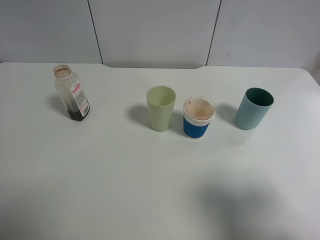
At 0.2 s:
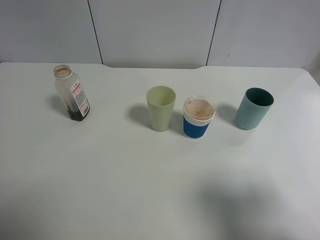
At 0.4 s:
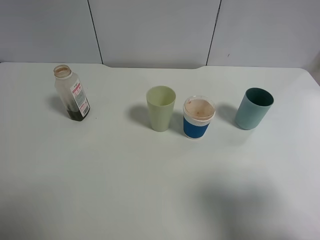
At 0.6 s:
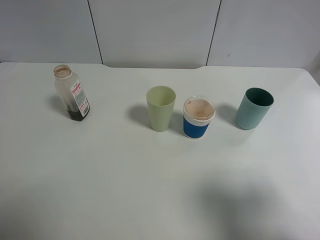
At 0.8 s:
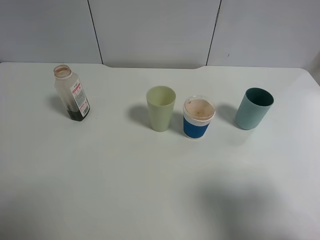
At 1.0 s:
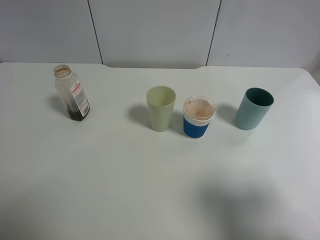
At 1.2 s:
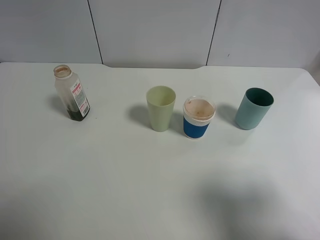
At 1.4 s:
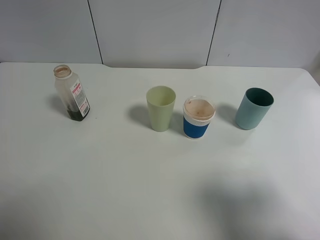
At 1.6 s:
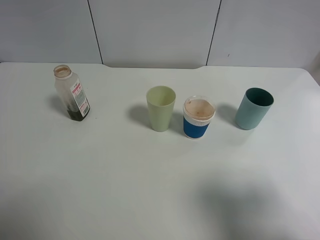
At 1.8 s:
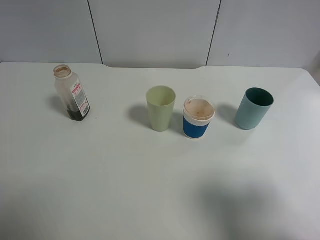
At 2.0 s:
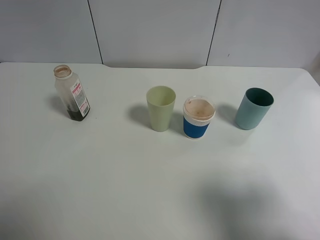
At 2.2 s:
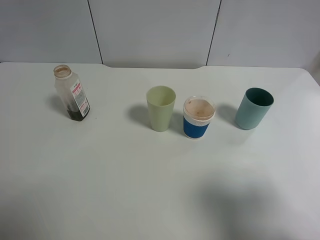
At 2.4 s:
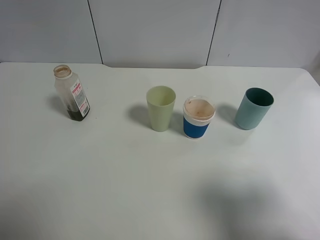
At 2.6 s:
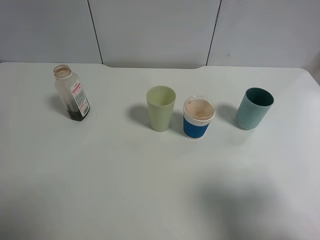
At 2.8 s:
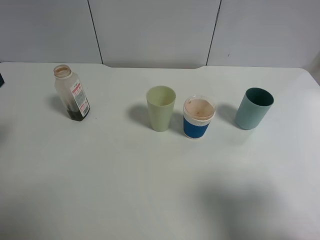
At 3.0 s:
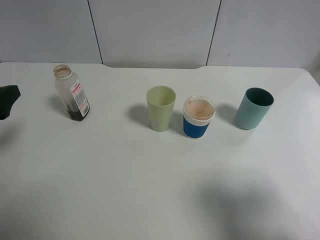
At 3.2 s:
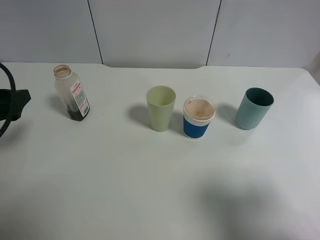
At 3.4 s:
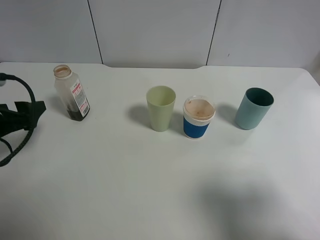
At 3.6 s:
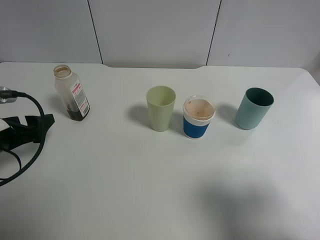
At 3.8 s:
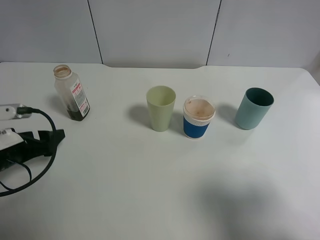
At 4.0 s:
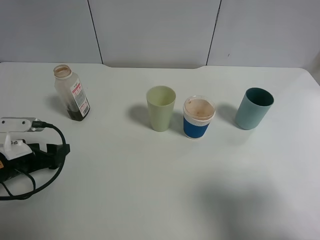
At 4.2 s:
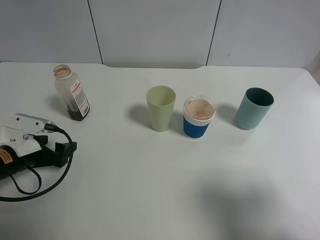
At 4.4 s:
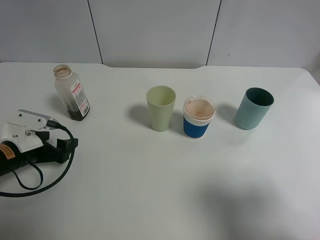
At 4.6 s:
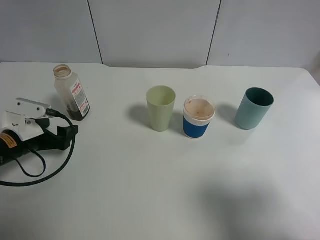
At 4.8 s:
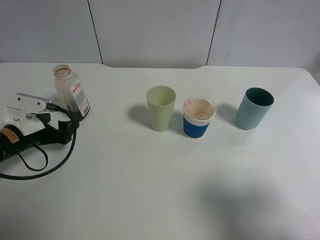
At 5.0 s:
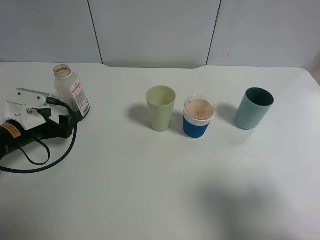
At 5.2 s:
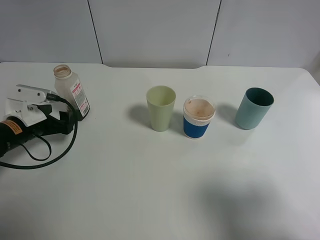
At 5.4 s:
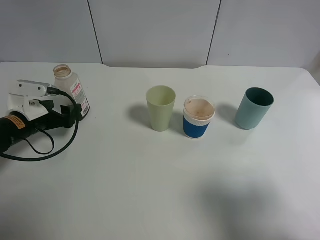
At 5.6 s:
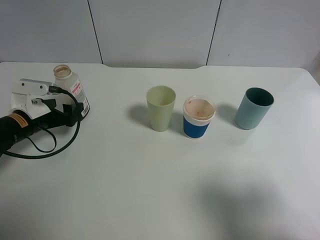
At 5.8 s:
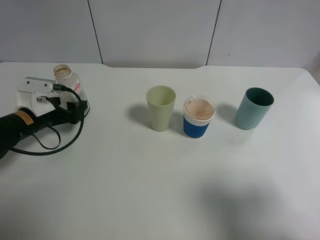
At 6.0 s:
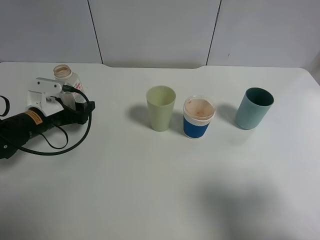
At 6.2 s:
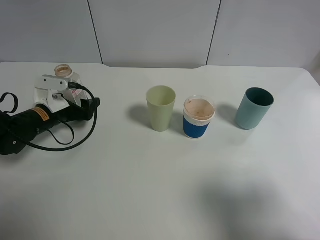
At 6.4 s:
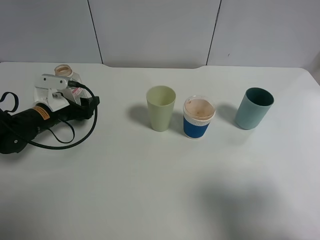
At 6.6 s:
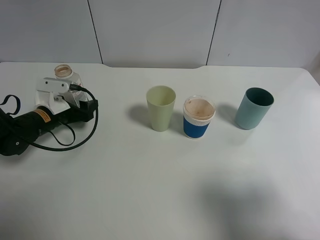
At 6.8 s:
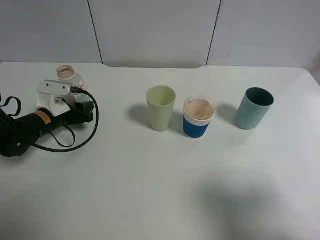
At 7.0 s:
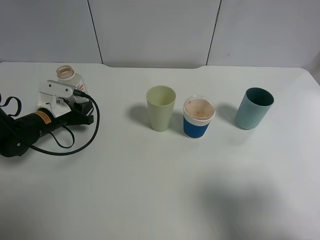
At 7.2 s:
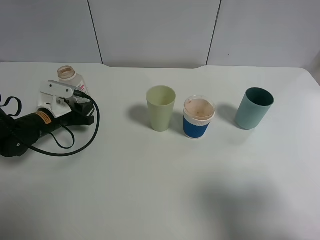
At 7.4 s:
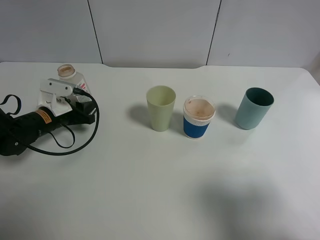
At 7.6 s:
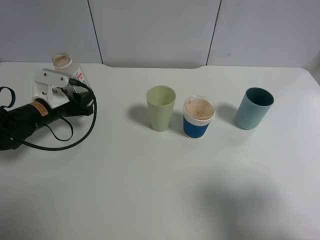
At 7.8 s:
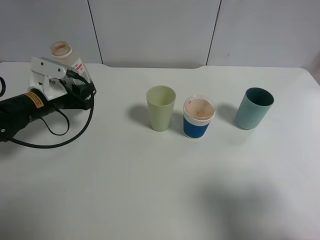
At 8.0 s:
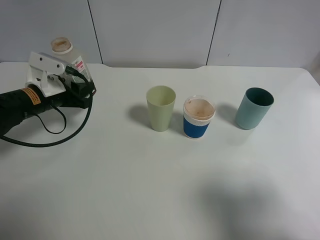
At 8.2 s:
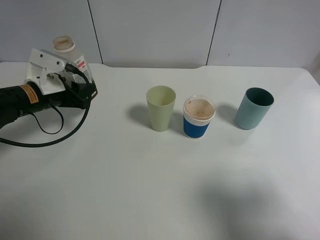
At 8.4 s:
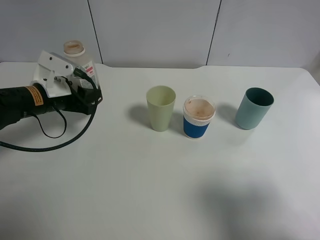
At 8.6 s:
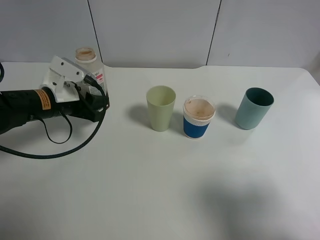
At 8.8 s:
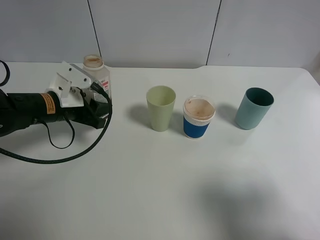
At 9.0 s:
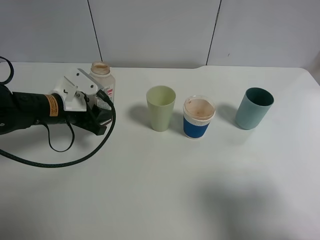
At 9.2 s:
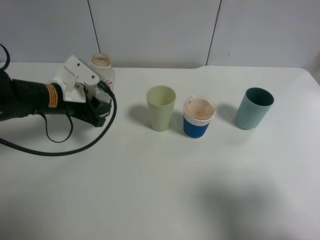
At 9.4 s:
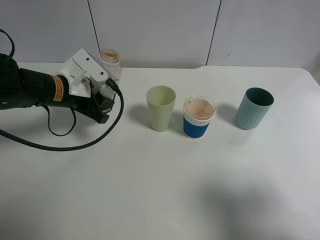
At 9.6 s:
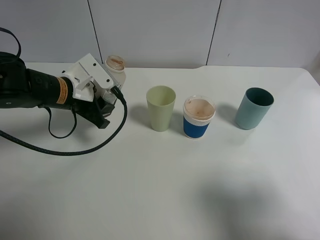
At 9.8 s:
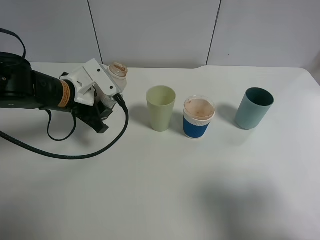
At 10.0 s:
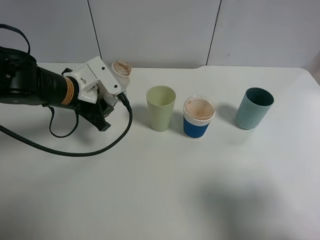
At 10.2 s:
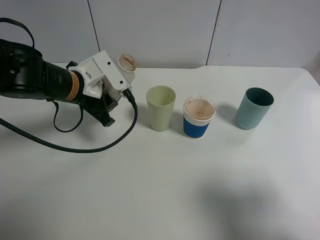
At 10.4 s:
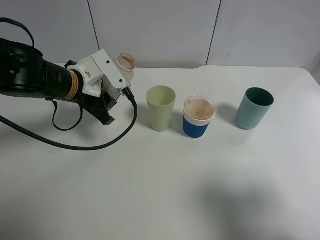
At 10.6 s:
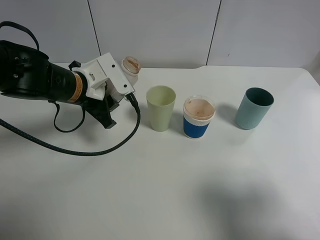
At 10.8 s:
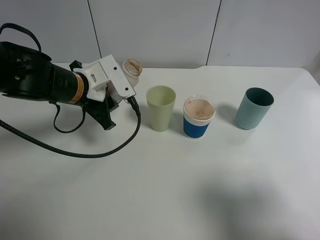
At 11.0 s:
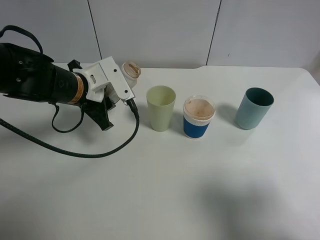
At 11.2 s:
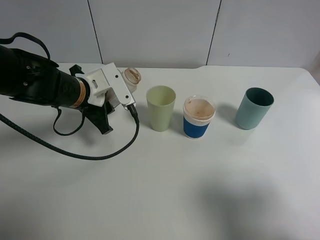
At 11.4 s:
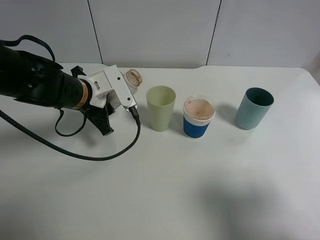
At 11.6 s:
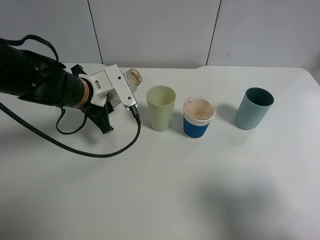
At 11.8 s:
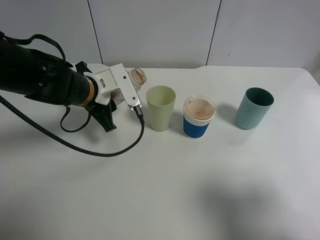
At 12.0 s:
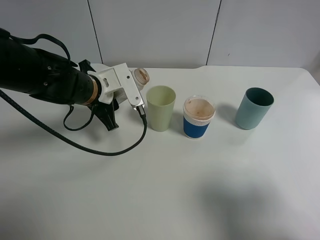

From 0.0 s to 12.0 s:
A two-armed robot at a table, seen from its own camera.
Task of the whole recording: use a gripper to hold the bottle of the drink and pour it into a random cup.
Step, from 0.0 s to 6.8 s: Grasp the cranberry juice bottle with the left gripper.
From 0.0 s to 1.6 s: The two grippers keep their place.
From 1.6 s to 3.0 s: The left gripper goes some 15 cm forward and downward.
From 3.0 s to 4.4 s: The left gripper moves downward, some 15 cm.
From 4.4 s to 6.0 s: The left gripper goes roughly 10 cm forward.
From 6.0 s to 7.6 s: The left gripper closes its fingers.
From 7.6 s to 9.0 s: The left gripper is displaced to the right by about 5 cm.
From 9.0 s to 10.4 s: The left gripper moves approximately 5 cm.
From 10.4 s to 12.0 s: The grippers stay close to where they were, moving slightly.

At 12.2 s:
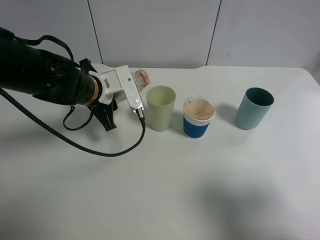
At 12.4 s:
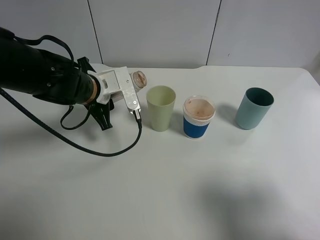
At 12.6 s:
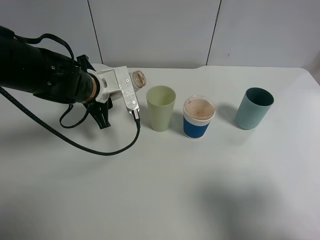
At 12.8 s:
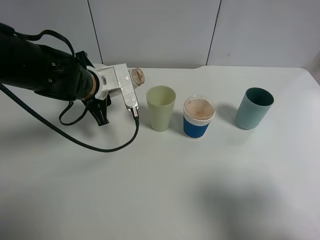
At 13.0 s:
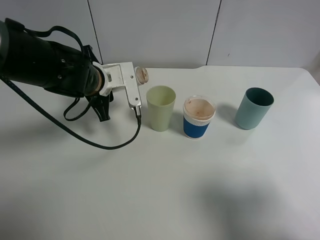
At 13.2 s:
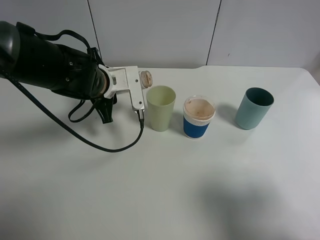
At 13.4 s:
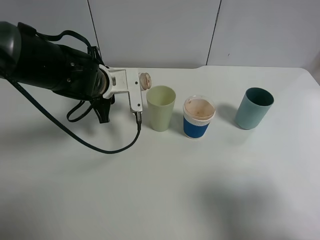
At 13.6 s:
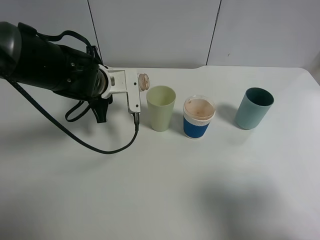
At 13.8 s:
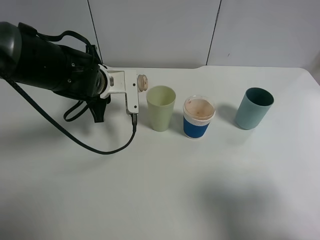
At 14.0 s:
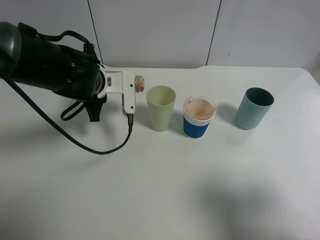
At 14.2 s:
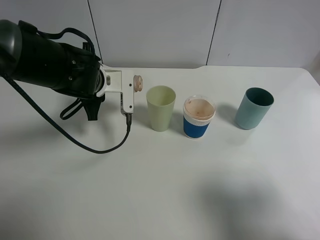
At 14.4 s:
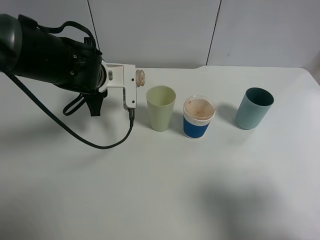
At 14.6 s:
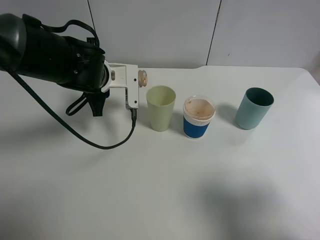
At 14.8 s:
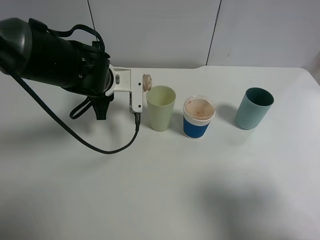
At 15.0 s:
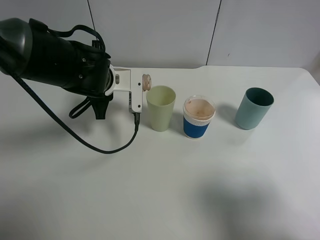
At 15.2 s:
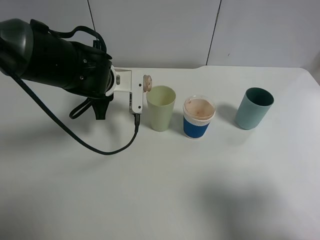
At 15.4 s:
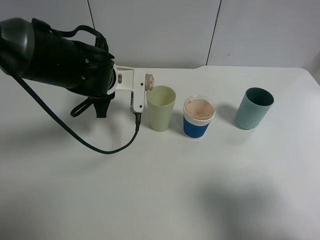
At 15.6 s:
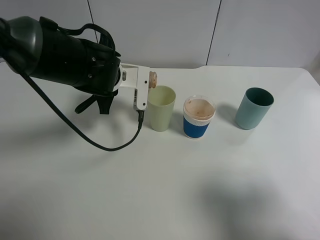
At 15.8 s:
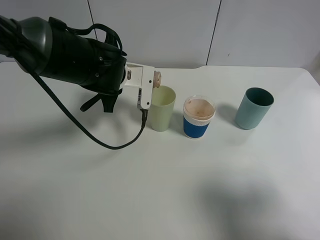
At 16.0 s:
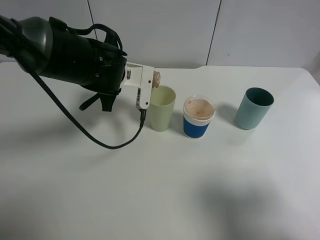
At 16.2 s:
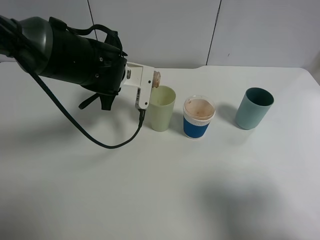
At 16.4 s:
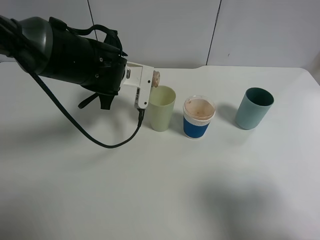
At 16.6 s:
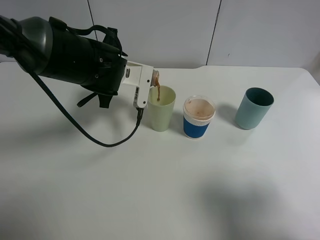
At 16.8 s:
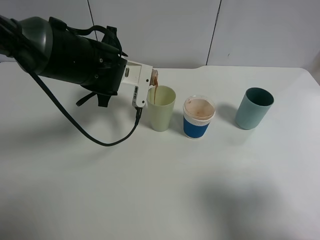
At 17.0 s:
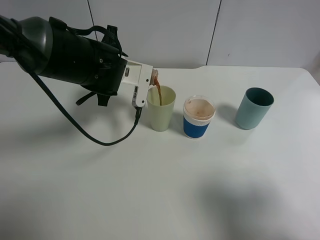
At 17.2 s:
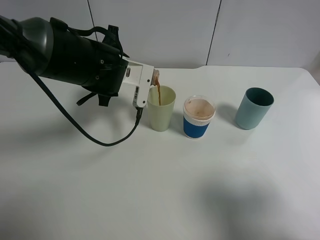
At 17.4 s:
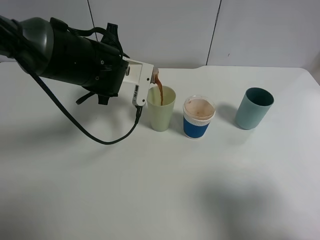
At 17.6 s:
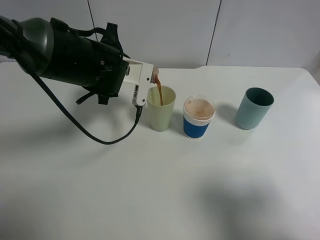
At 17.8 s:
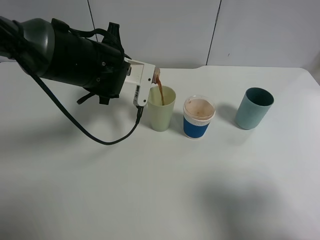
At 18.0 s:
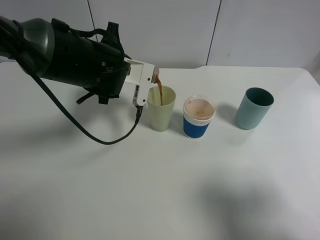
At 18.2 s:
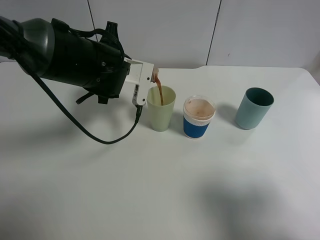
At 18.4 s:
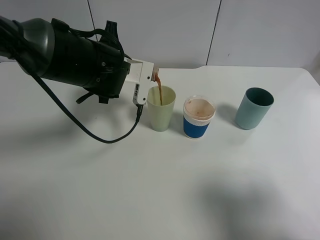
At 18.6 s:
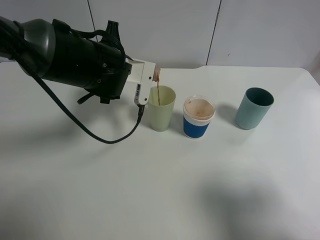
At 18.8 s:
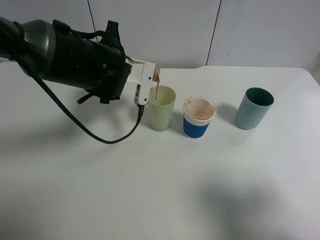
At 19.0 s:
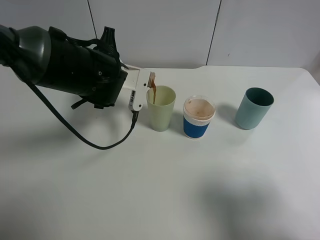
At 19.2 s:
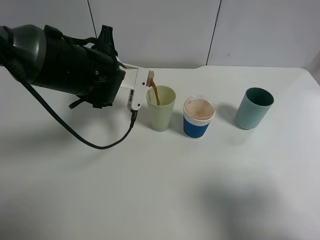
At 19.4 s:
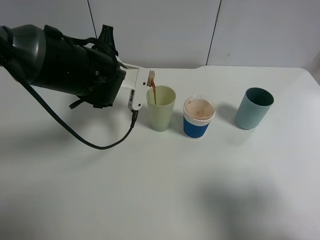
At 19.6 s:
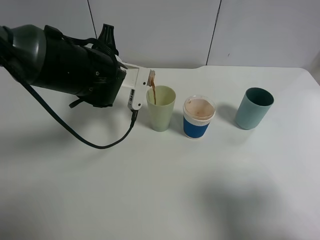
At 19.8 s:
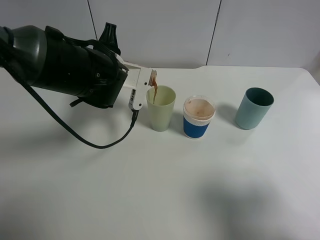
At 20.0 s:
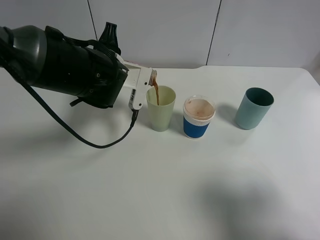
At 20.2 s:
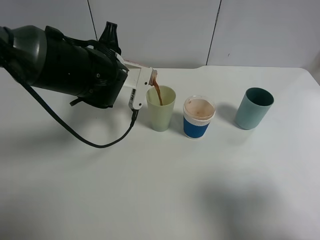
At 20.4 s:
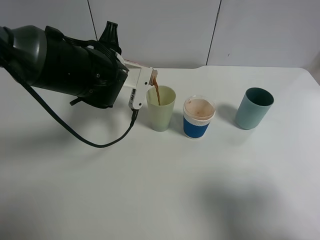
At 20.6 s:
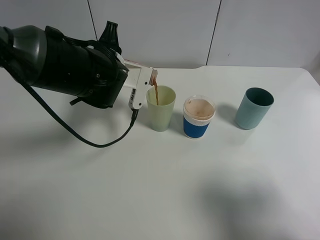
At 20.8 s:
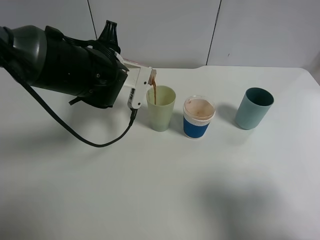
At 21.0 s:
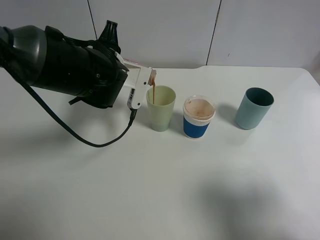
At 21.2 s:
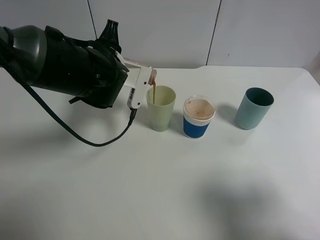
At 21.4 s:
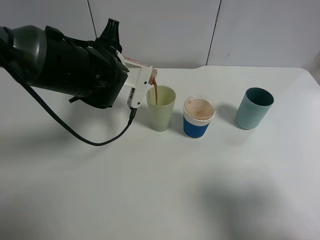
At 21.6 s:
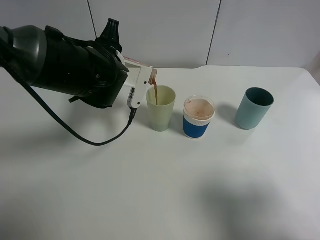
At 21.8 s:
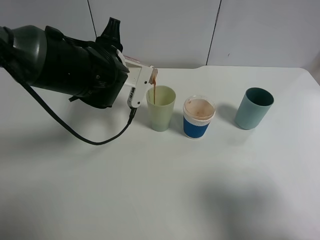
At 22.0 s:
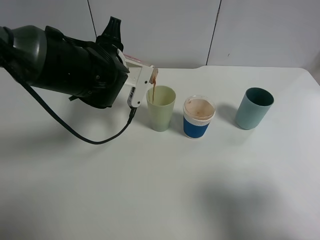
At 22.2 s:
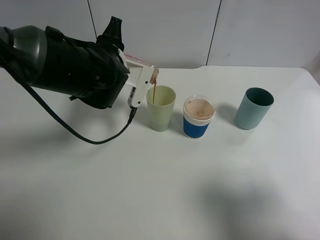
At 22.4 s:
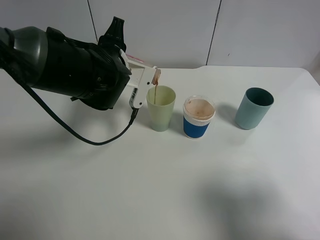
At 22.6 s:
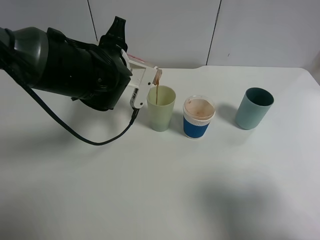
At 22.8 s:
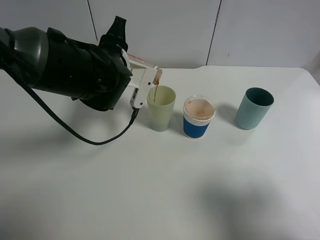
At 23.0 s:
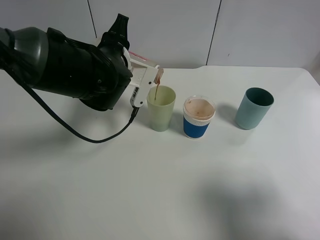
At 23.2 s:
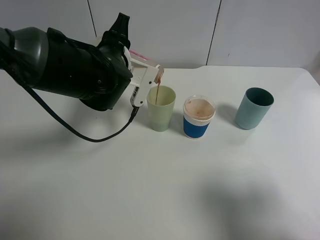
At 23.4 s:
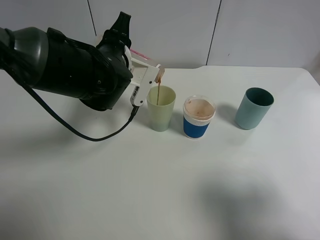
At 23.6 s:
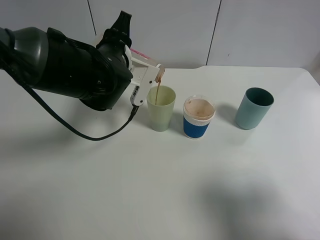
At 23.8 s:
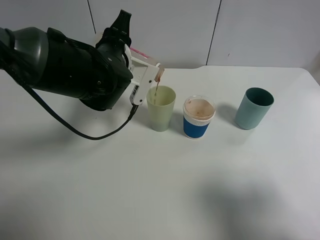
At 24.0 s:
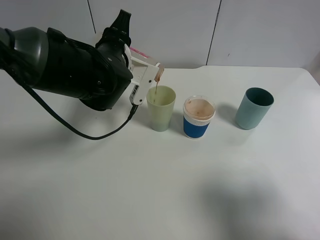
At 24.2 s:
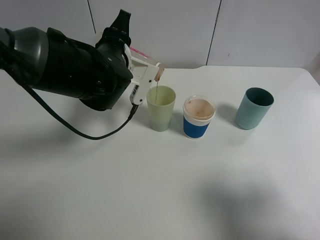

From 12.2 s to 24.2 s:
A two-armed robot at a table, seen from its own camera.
Task of the whole recording: use a gripper to hold the bottle of the drink and pour it into a random cup.
From 13.8 s to 16.6 s: There are only small adjustments of the grippers.
From 16.6 s to 18.2 s: Both grippers stay about where they are.
From 18.2 s to 19.8 s: Neither gripper changes place.
From 19.8 s to 21.2 s: Both grippers stay put.
From 21.2 s to 22.6 s: Both grippers stay put.
From 22.6 s to 24.2 s: There are only small adjustments of the grippers.
